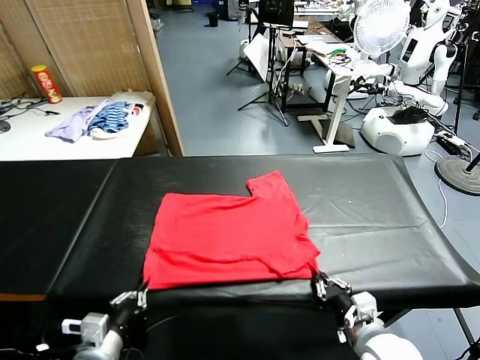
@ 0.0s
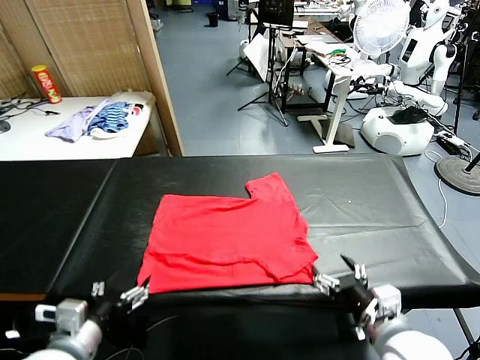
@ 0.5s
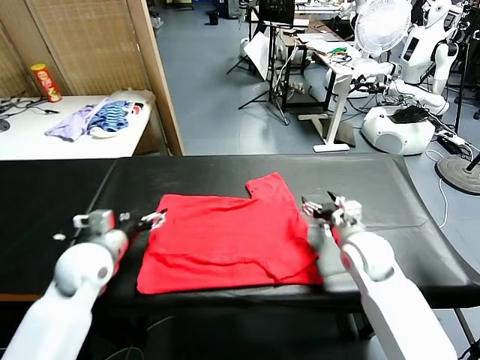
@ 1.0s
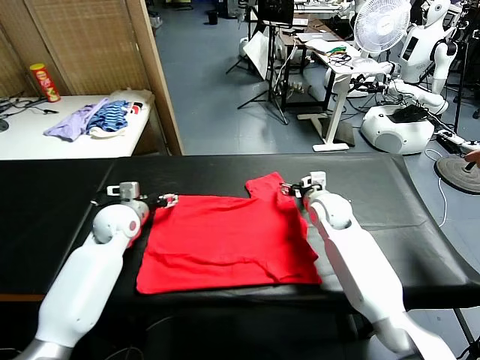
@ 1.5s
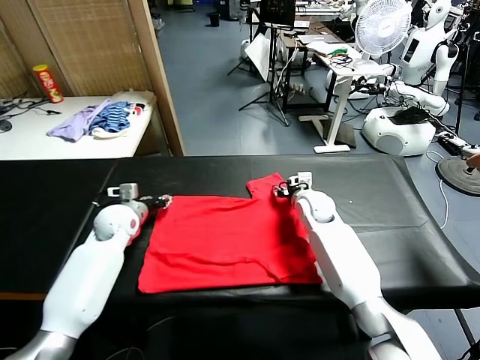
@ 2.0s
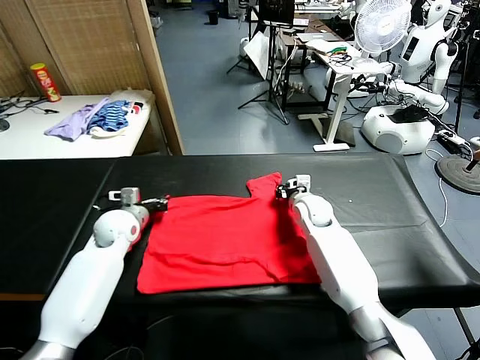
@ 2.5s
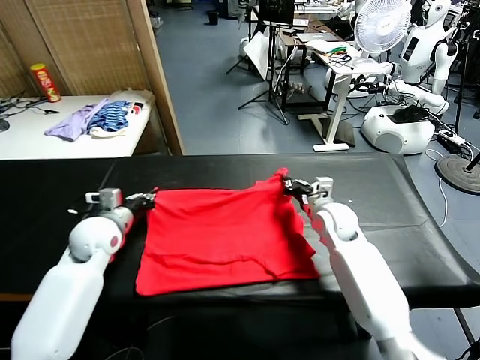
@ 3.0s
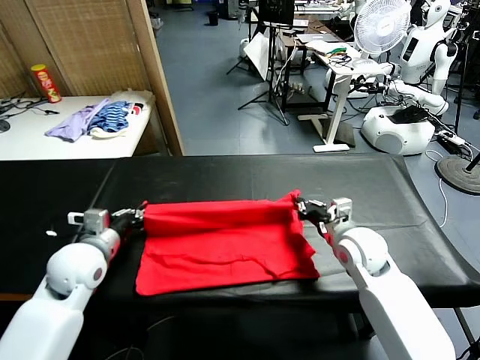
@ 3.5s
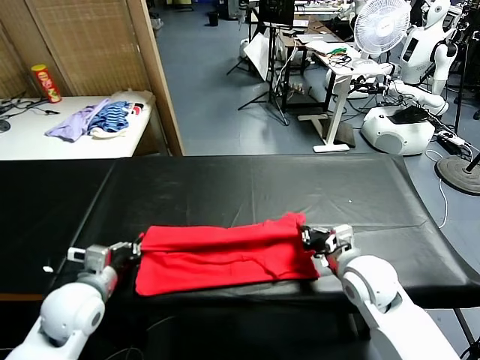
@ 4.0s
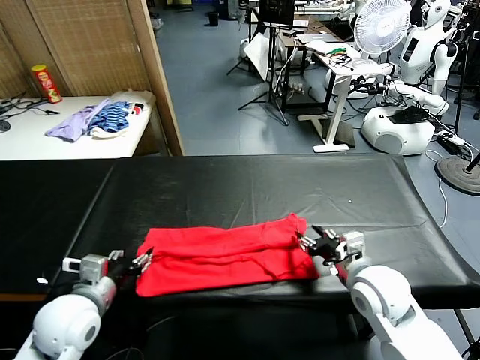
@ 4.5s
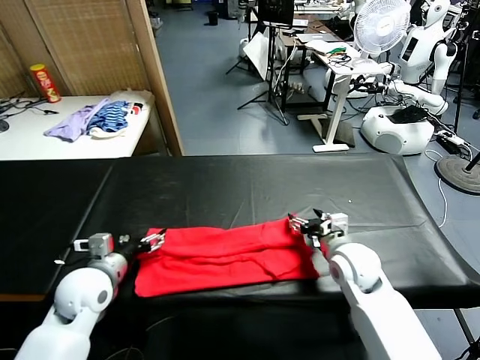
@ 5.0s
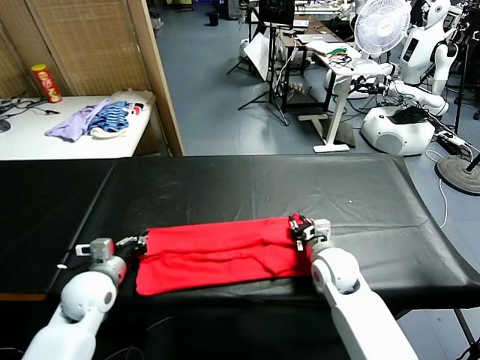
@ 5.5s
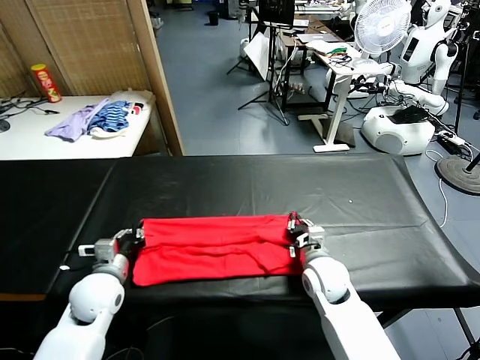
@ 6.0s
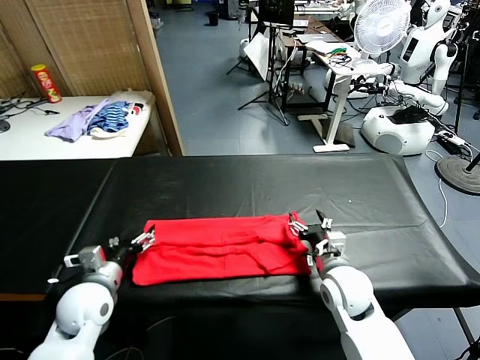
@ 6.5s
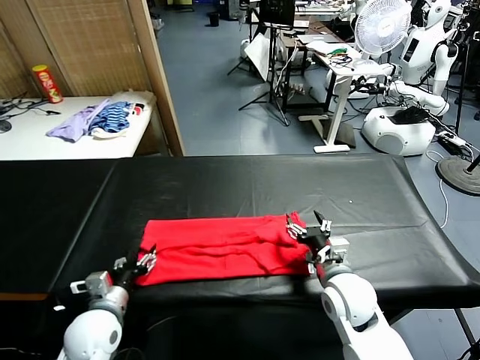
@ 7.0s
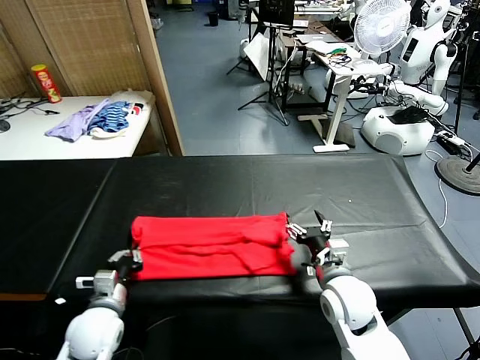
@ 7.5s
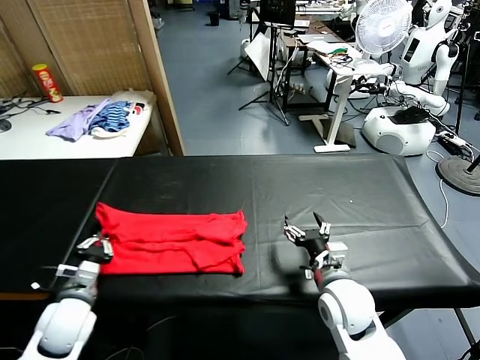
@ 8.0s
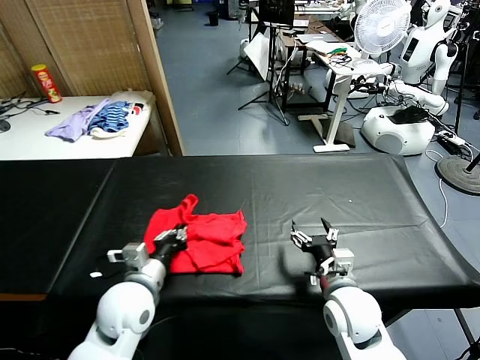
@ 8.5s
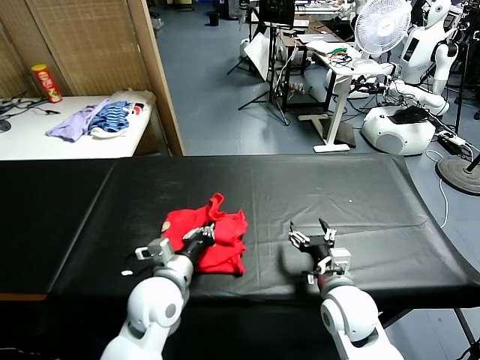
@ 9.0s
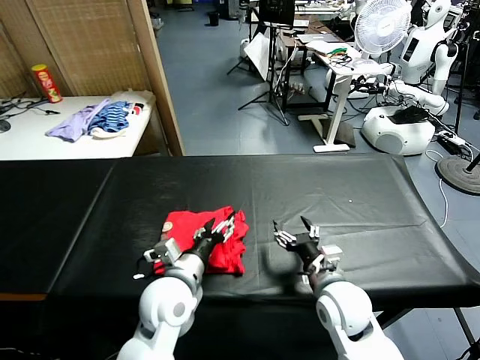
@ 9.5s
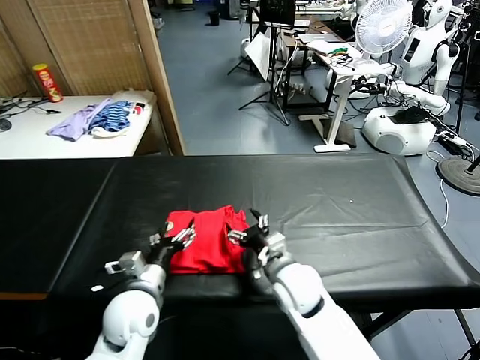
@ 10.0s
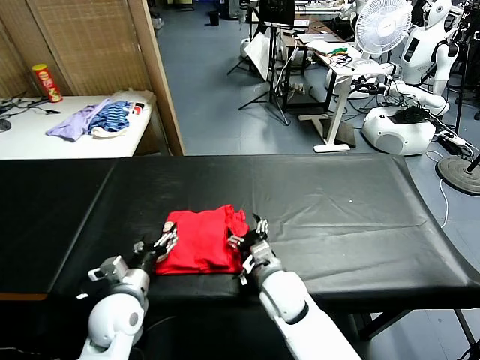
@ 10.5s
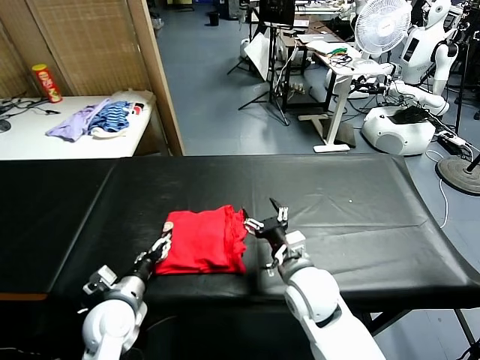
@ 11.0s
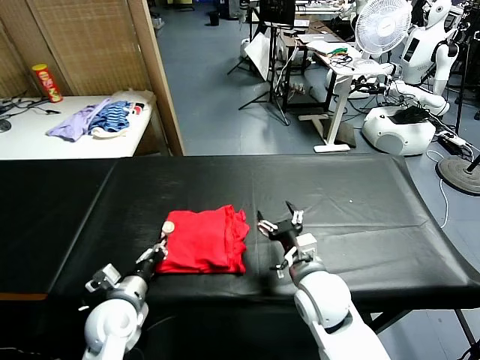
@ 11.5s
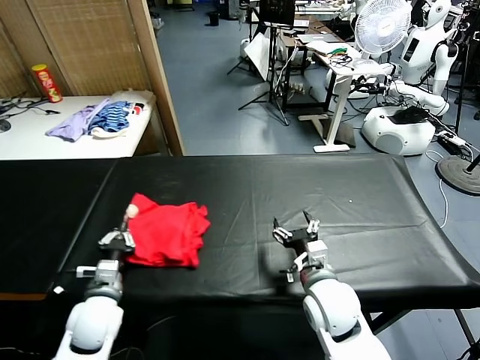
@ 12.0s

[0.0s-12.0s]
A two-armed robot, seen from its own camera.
Task of the whole recording: fold and organize the clothes.
Step, 0.5s to 2.5s: use both grippers simultaneously to clamp the upper edge of the clothing fabric.
Step, 3.5s to 4.5s: use both grippers to drag the upper edge of the fabric backward and fold it over the lower edge.
Step, 5.0s to 7.5s: use the left gripper to clamp the left edge of the fabric.
Step, 8.0s to 9.5s: use the left gripper to drag the left edge of the fabric to the left and folds it over the right edge.
0.0s to 2.0s: Both grippers travel together forward, some 35 cm. The right gripper closes, while the left gripper opens, then closes again.
2.0s to 4.0s: The two grippers go roughly 20 cm backward.
4.0s to 6.0s: The right gripper travels downward and to the left by about 10 cm, and opens up; the left gripper shifts some 5 cm downward, and opens, then closes again.
6.0s to 8.0s: Both grippers move backward, approximately 5 cm. The right gripper opens up, while the left gripper opens and closes again.
8.0s to 10.0s: The right gripper is displaced to the left by roughly 10 cm; the left gripper shifts approximately 15 cm to the right, and opens its fingers.
10.0s to 12.0s: The left gripper moves to the left, approximately 10 cm, and closes; the right gripper is displaced to the right by about 5 cm.

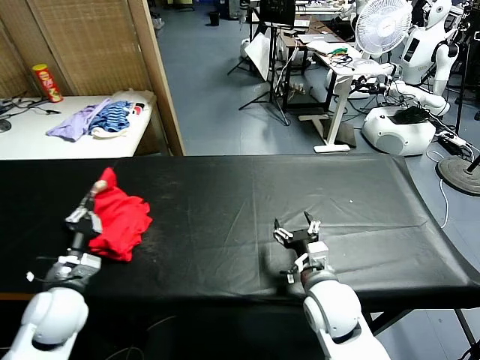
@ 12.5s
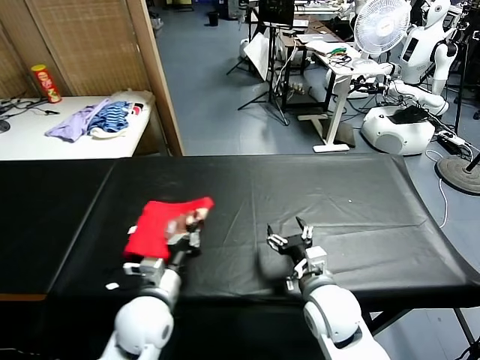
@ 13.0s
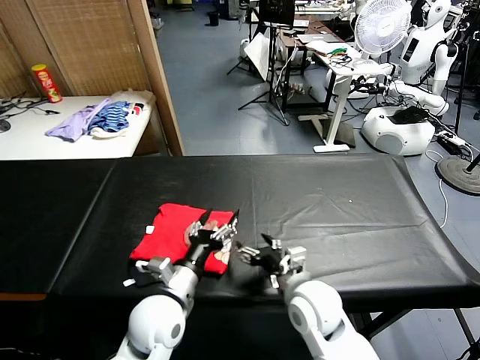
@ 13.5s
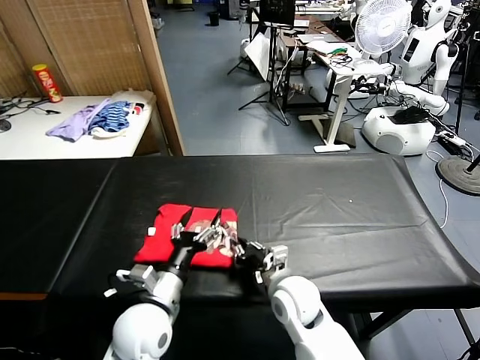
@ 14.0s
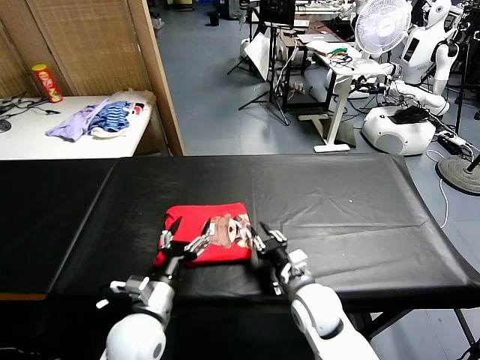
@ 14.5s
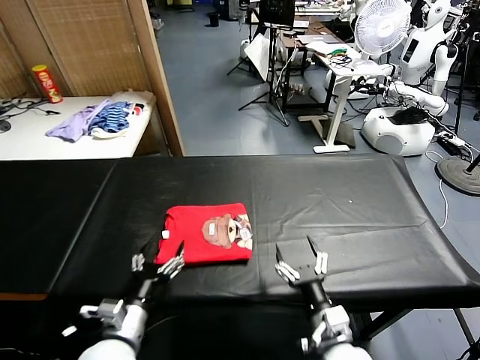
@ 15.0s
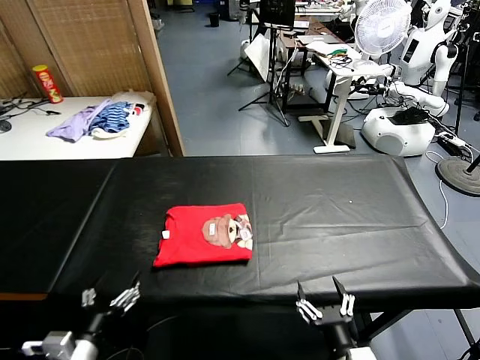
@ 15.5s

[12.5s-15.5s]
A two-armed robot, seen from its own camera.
Task of the whole recording: fold and organize the clothes.
Step, 13.5s to 14.5s: Drag the clothes to the center of the table.
12.5s to 14.0s: The right gripper travels to the left by approximately 5 cm, and closes its fingers; the left gripper is displaced to the right by some 20 cm, and opens.
14.0s to 15.5s: The right gripper travels backward and to the right by approximately 20 cm, and opens its fingers. The left gripper travels to the left and backward by some 15 cm.

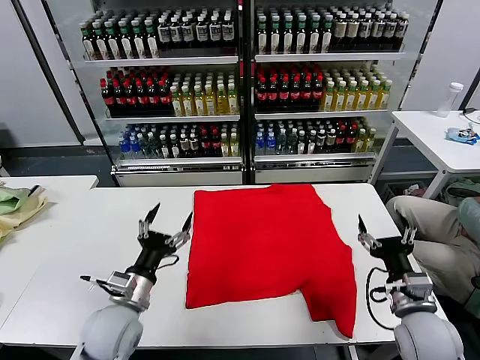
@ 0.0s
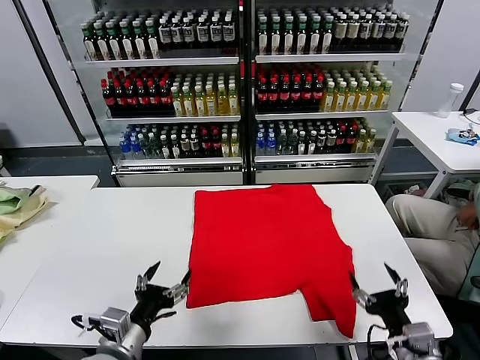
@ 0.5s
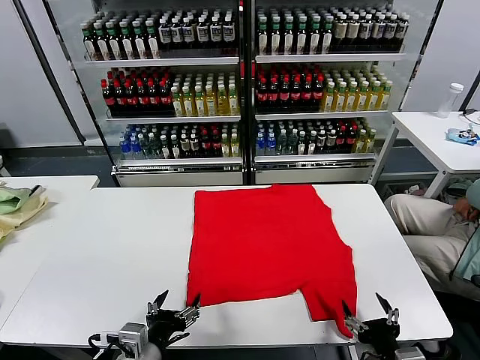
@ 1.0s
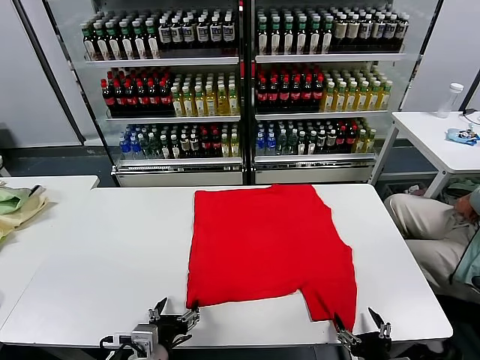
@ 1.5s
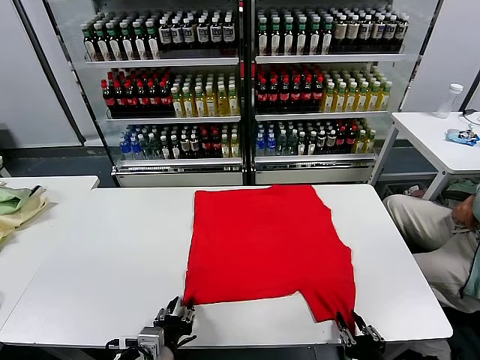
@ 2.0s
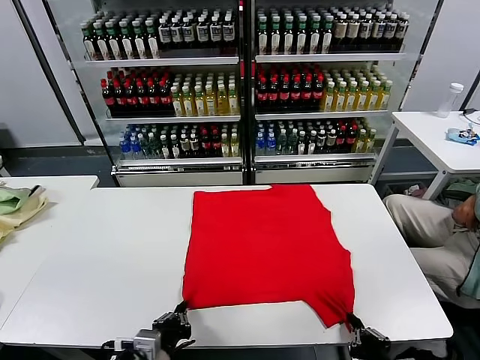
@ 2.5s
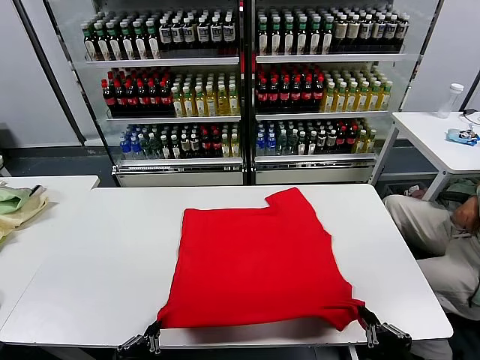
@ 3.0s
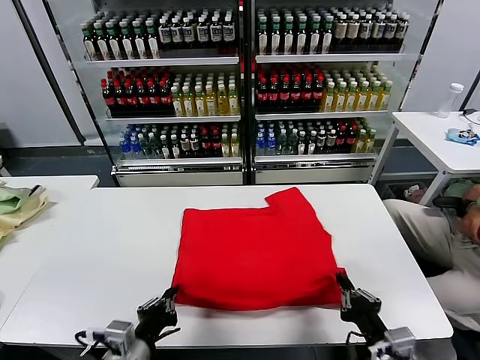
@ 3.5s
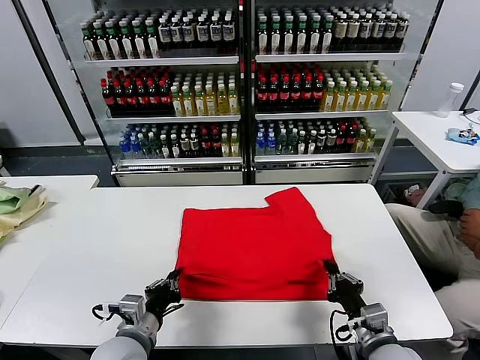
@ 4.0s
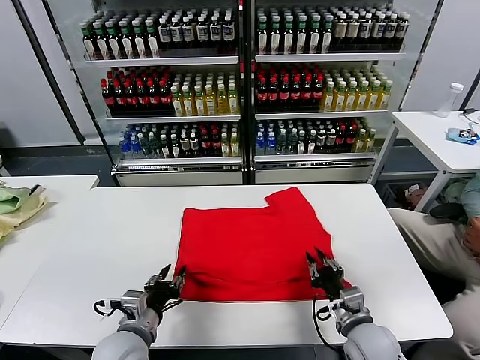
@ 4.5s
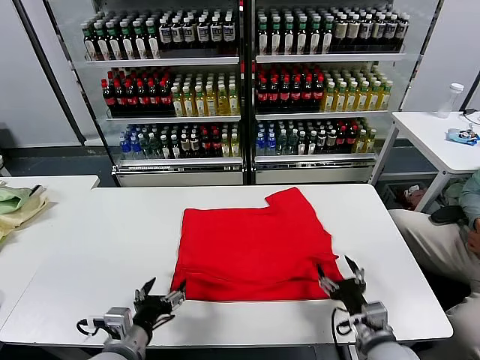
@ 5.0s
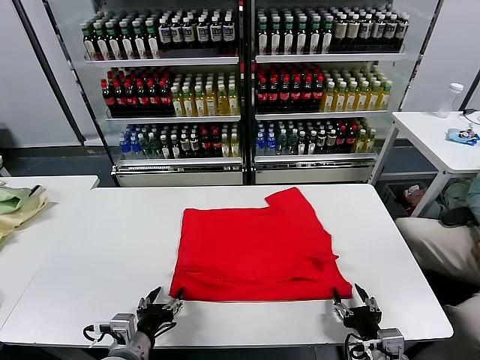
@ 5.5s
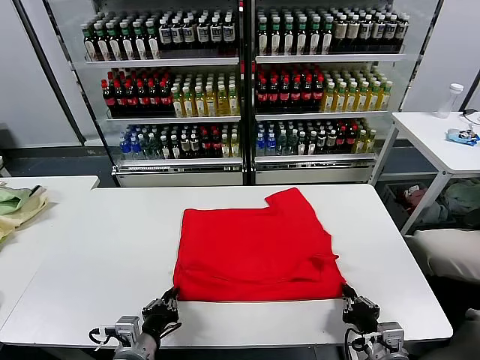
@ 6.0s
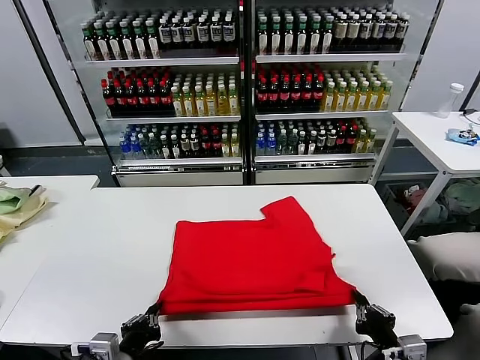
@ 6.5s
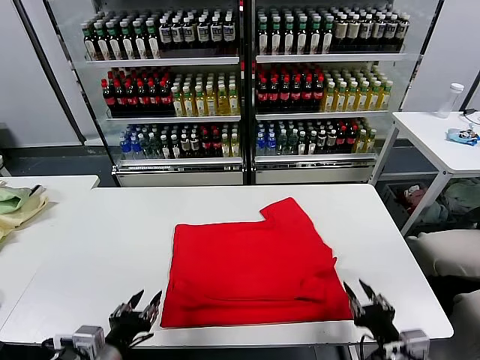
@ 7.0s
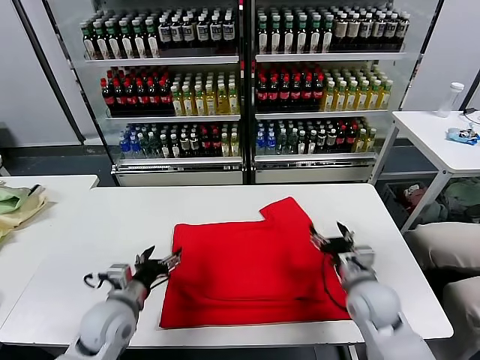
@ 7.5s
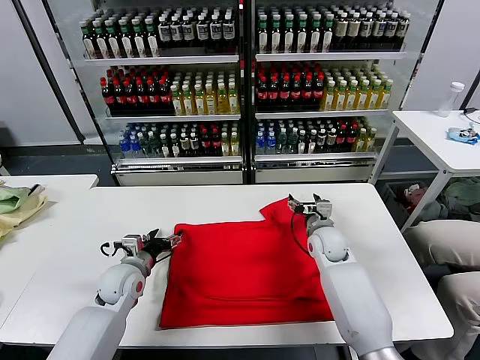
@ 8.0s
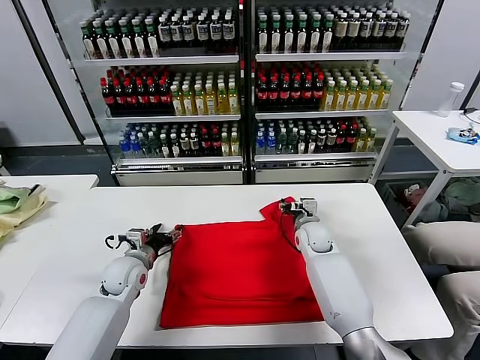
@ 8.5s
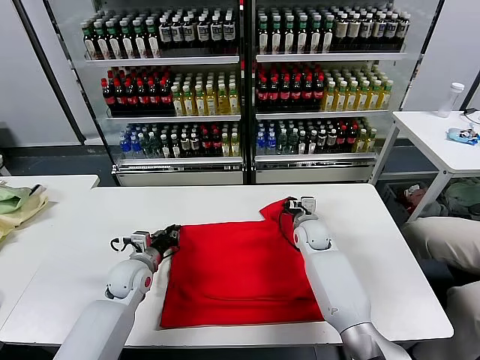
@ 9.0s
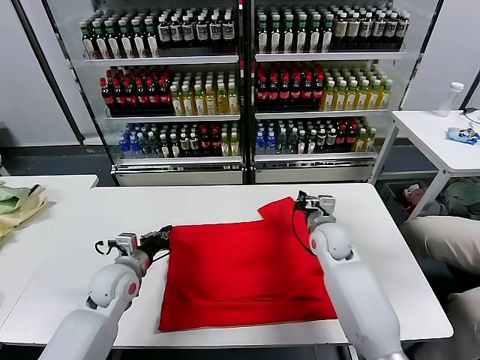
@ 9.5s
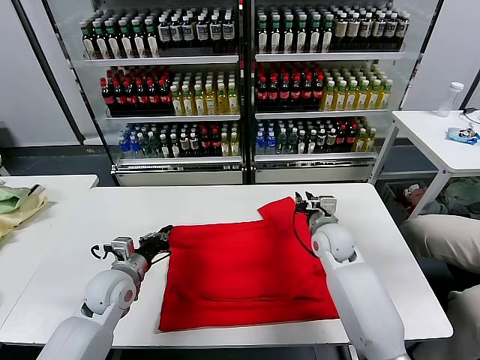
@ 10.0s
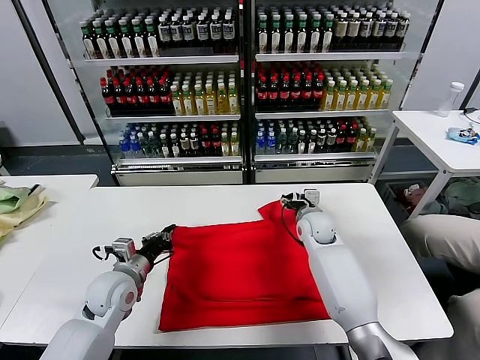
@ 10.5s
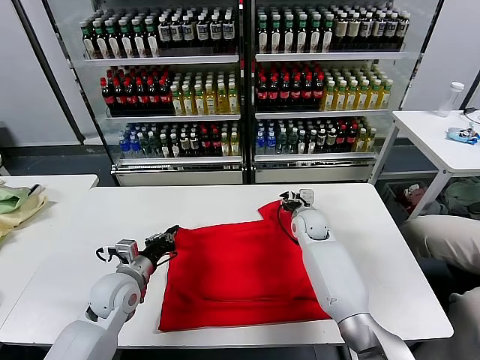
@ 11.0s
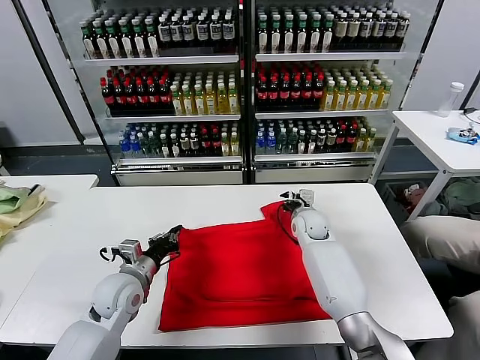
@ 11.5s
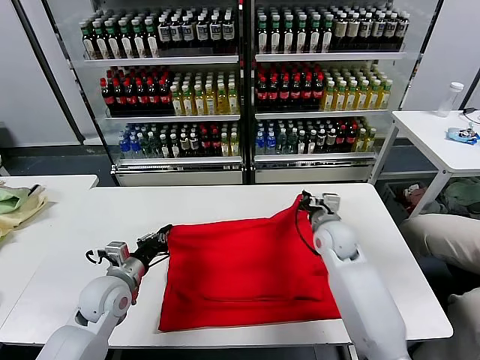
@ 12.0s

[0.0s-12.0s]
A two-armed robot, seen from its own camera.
Task of the whole recording: fold and organize the clothes.
Step, 0.0s to 2.0s: use both grippers simultaneously to clamp the lower edge of the clothing fabric.
Step, 2.5s to 4.0s: use both grippers to drag the lower edge of the fabric forward and fold it over the upper edge.
Step, 4.5s to 6.5s: Drag the clothes downward with both gripper.
Step, 7.0s to 9.0s: use both grippers simultaneously to clamp the upper edge of the clothing fabric.
2.0s to 4.0s: The left gripper shifts some 5 cm forward, and closes; the right gripper travels forward by roughly 10 cm.
4.0s to 6.0s: The right gripper ends up roughly 5 cm from where it was, and opens, then closes once more. The left gripper opens, then closes again.
6.0s to 8.0s: The right gripper moves forward, some 30 cm, and opens its fingers, while the left gripper shifts some 20 cm forward, and opens.
8.0s to 10.0s: The left gripper closes its fingers. Meanwhile the right gripper ends up about 5 cm from where it was, and closes its fingers.
10.0s to 12.0s: The right gripper goes forward and returns, approximately 5 cm each way, and closes up.
